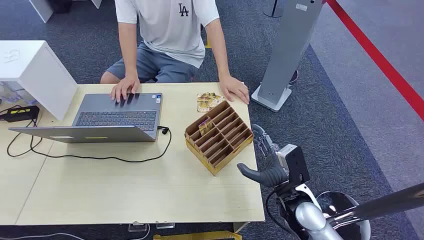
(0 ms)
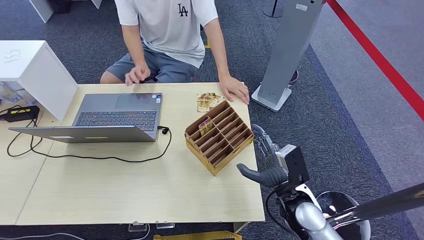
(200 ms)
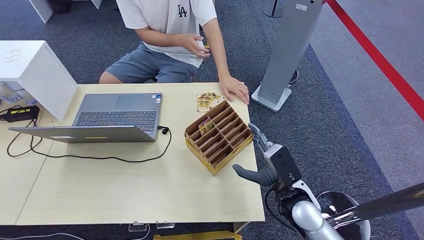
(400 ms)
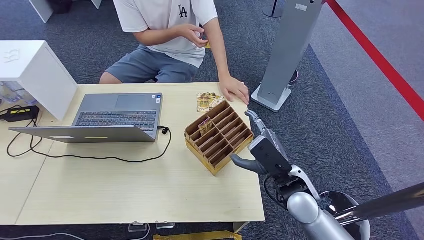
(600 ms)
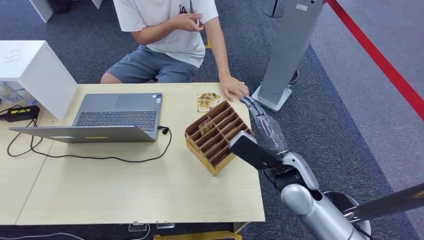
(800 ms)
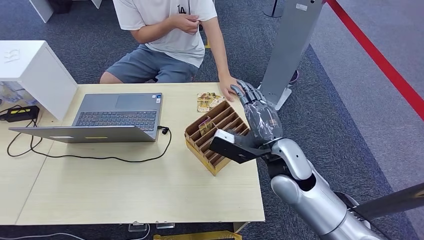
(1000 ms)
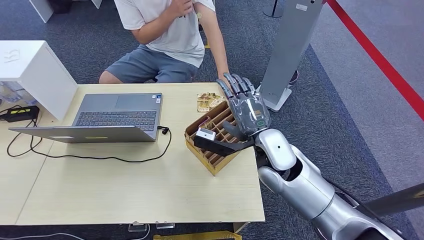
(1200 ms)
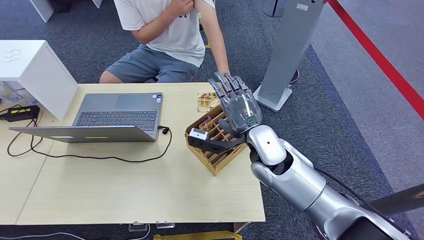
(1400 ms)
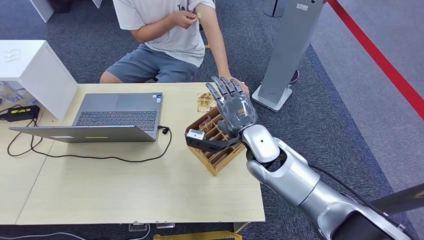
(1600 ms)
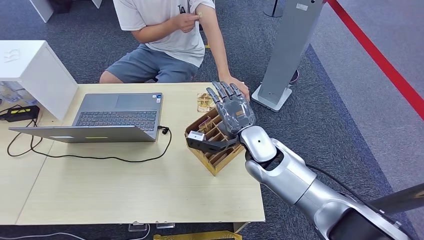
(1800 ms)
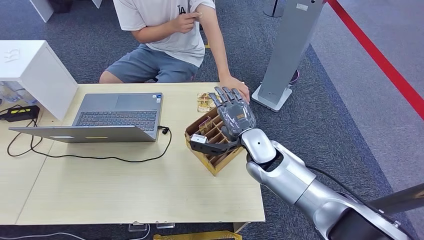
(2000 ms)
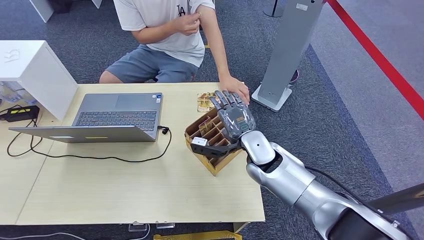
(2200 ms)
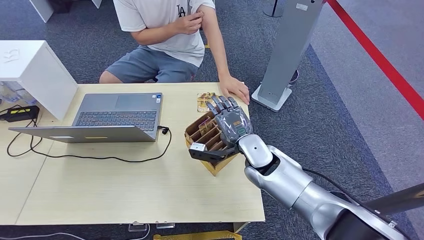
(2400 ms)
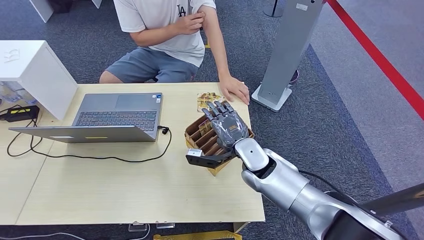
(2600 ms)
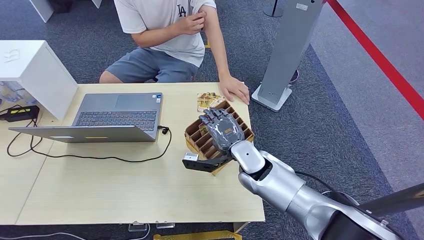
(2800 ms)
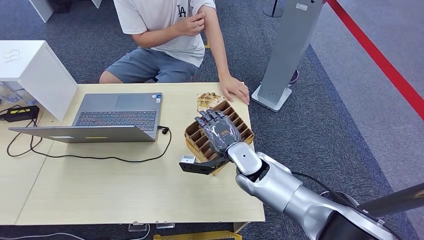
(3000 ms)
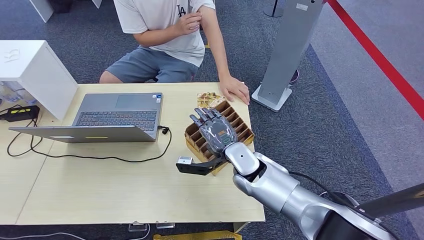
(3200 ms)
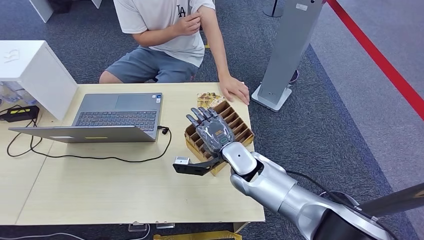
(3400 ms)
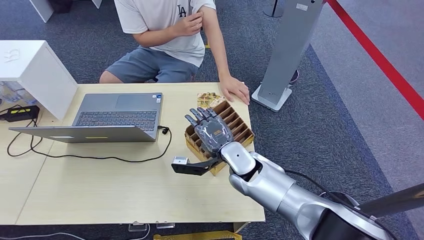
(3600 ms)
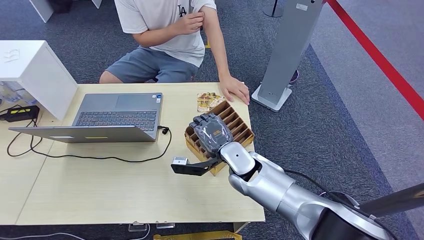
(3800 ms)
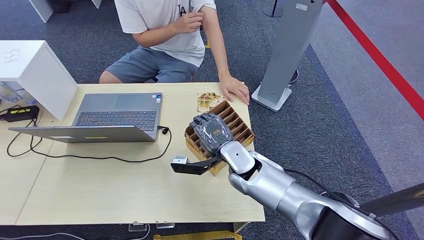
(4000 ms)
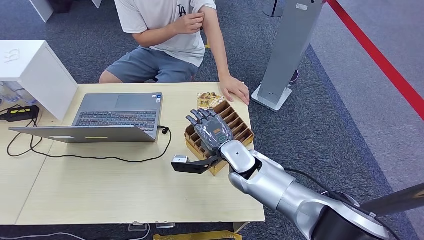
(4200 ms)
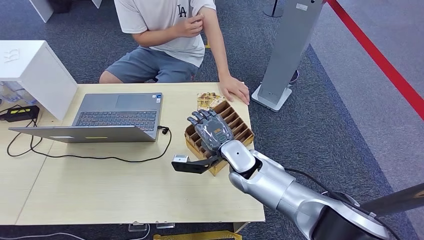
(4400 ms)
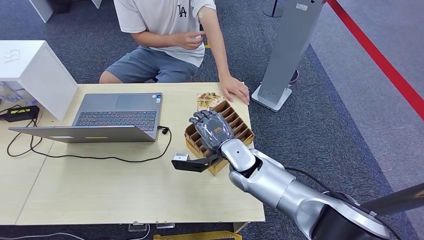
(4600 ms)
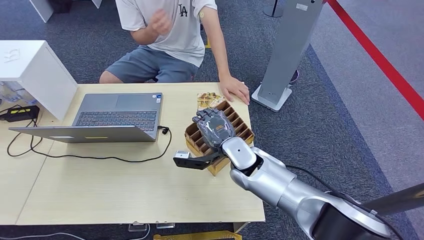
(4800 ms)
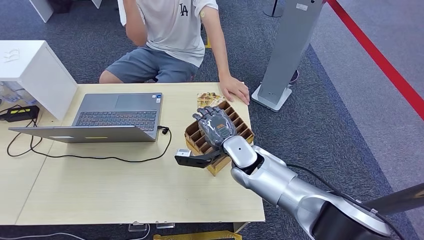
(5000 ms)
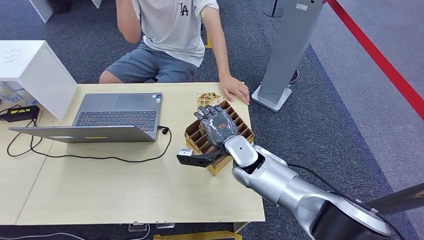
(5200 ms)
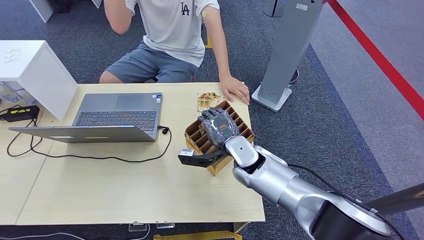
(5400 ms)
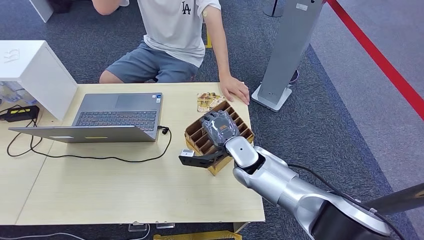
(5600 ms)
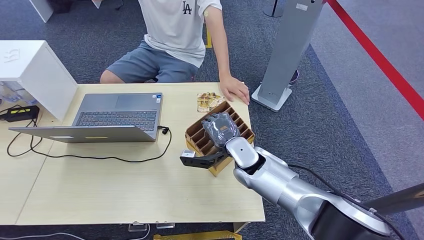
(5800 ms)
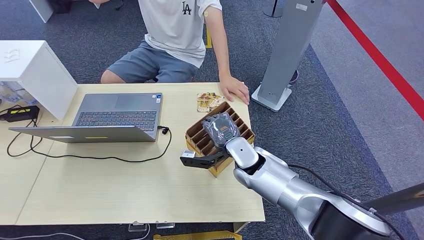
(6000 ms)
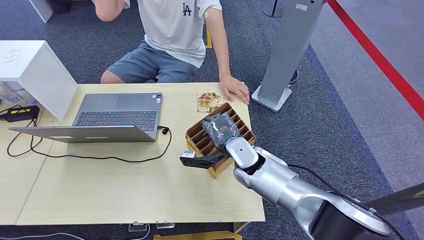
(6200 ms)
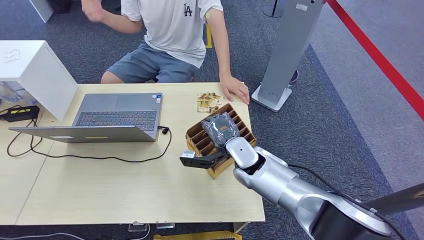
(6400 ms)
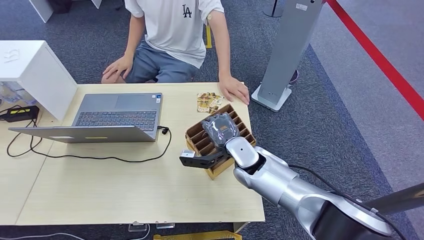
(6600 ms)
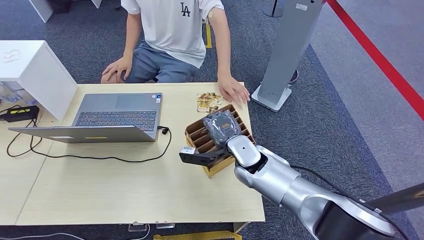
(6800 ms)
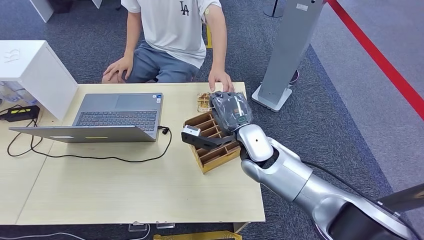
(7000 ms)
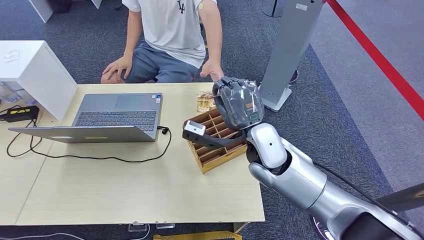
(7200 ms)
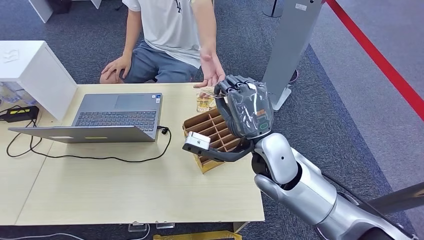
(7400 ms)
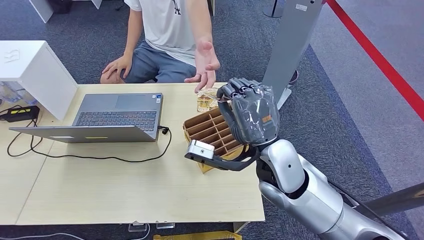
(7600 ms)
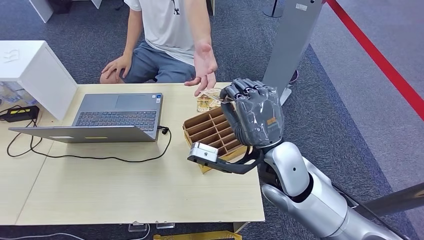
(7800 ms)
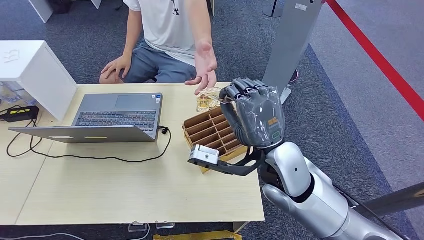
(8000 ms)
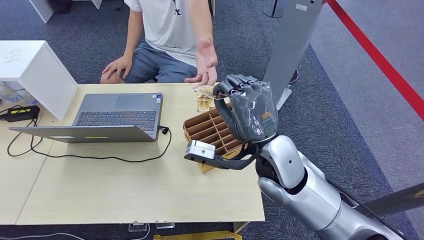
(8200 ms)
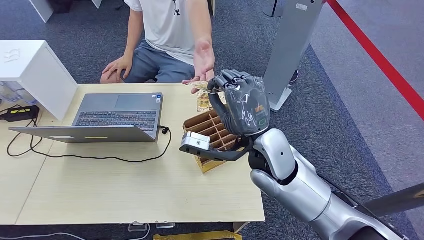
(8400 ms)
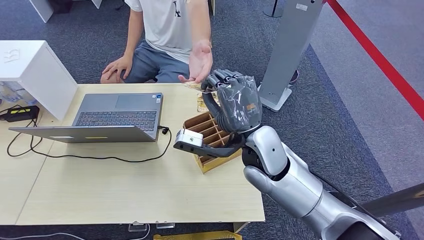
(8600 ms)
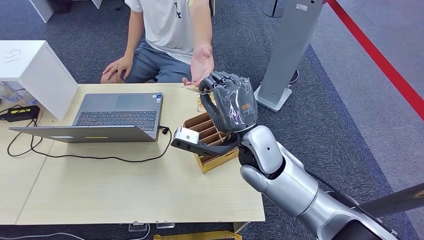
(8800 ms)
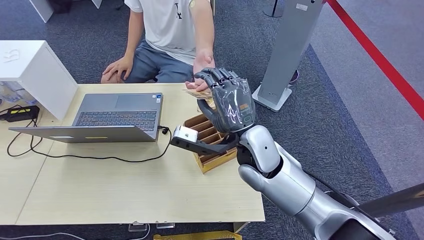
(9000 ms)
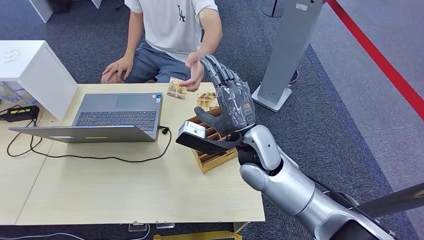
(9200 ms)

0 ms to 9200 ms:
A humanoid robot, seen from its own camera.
Step, 0 ms to 7400 ms: Pick up the room card from the card holder.
Step, 7800 ms to 9200 ms: Hand the room card to the target.
1600 ms to 3000 ms: The right hand ends up roughly 5 cm from where it was.
3000 ms to 6200 ms: The hands make only small movements.
6200 ms to 7600 ms: The right hand goes about 15 cm upward and backward.
7600 ms to 9200 ms: The right hand moves downward and forward, some 10 cm.
